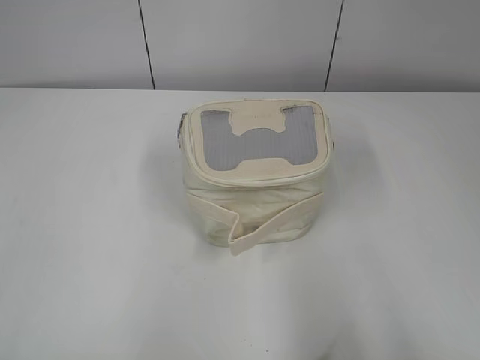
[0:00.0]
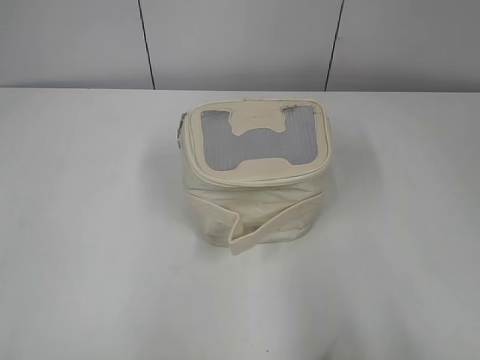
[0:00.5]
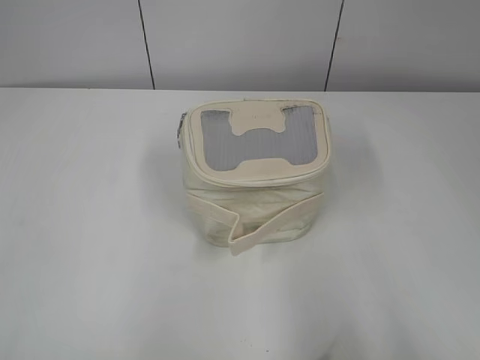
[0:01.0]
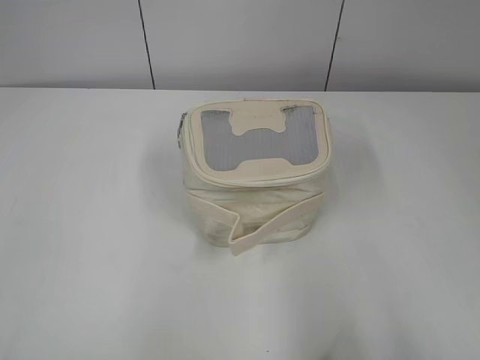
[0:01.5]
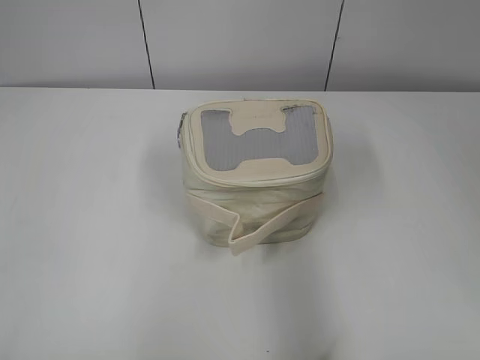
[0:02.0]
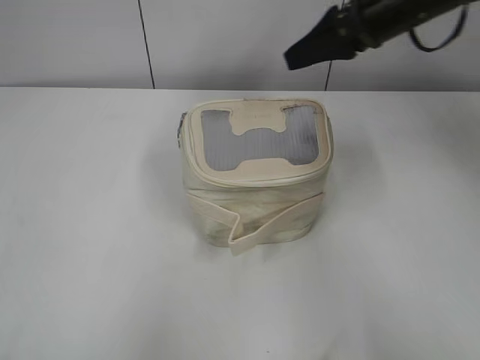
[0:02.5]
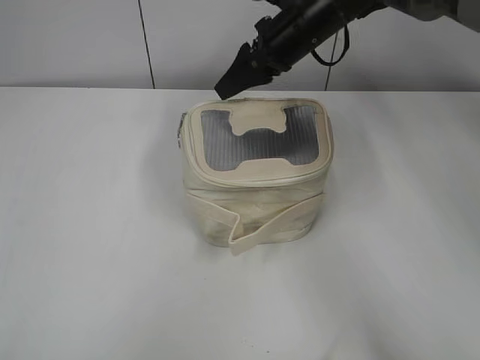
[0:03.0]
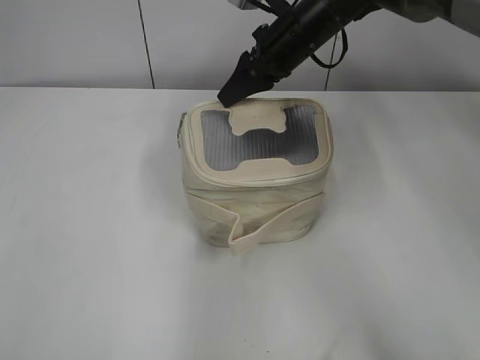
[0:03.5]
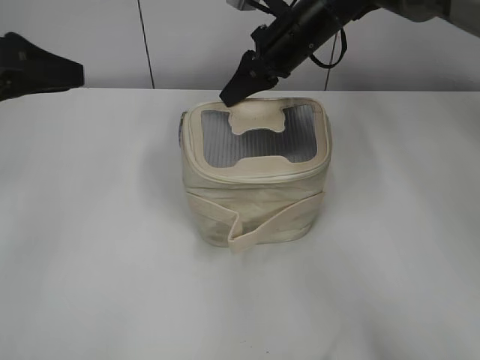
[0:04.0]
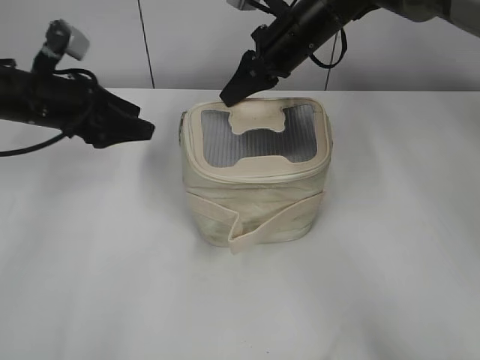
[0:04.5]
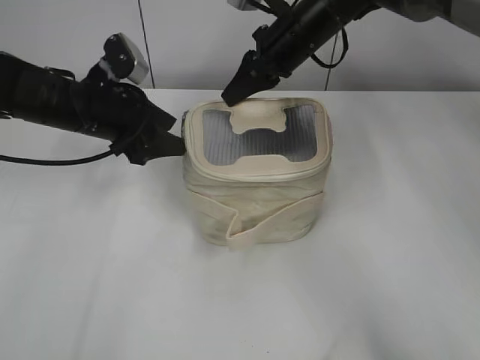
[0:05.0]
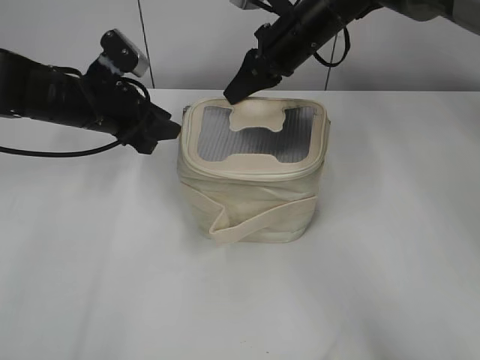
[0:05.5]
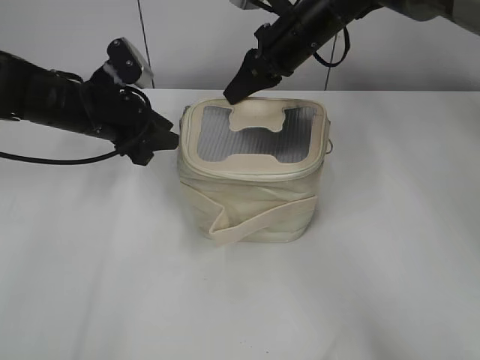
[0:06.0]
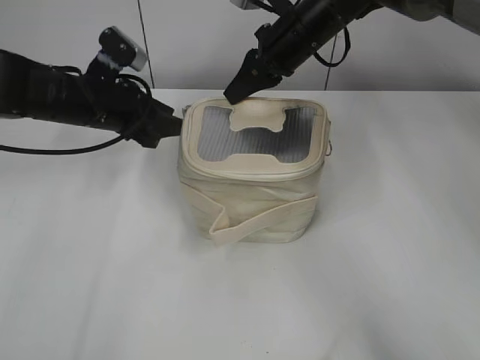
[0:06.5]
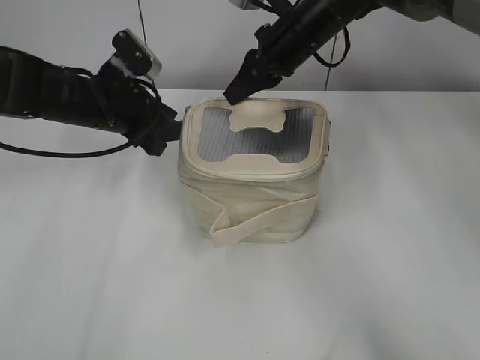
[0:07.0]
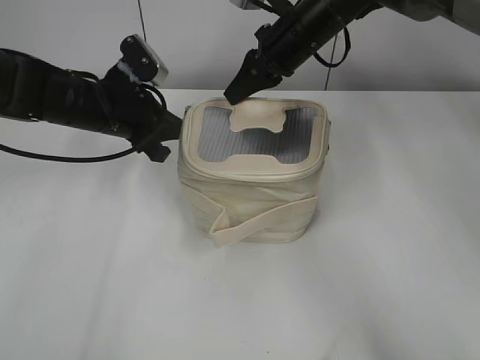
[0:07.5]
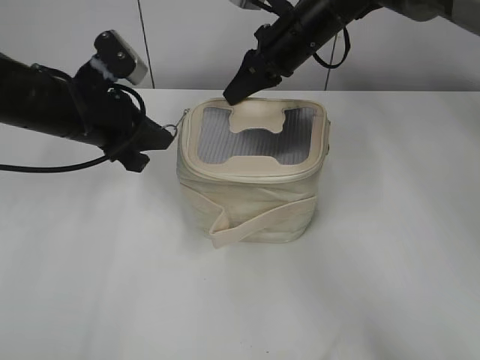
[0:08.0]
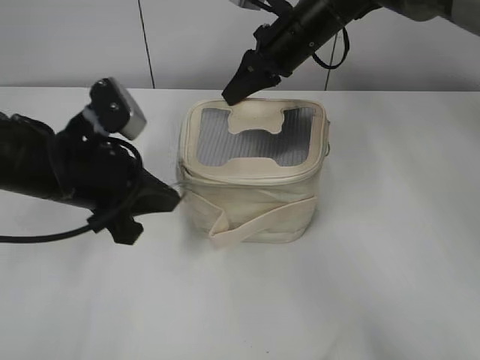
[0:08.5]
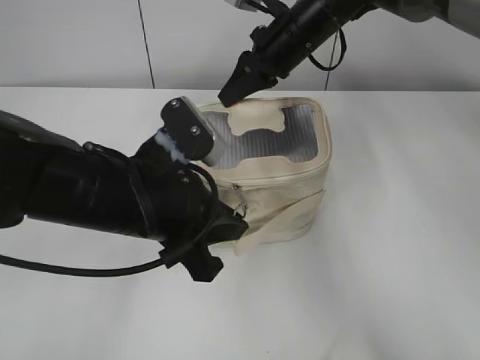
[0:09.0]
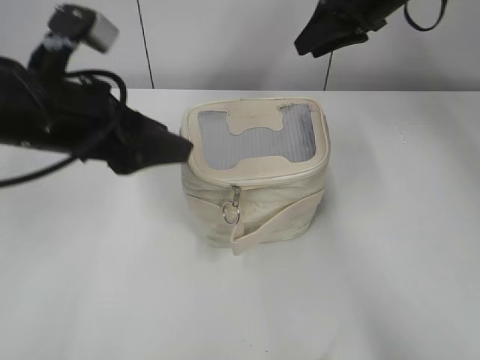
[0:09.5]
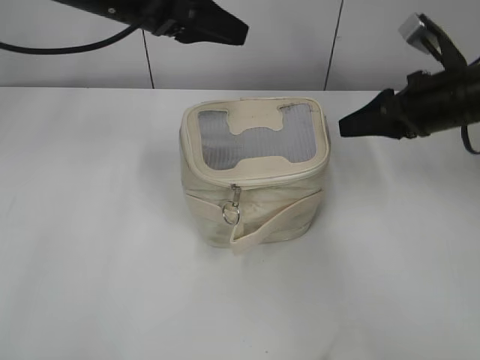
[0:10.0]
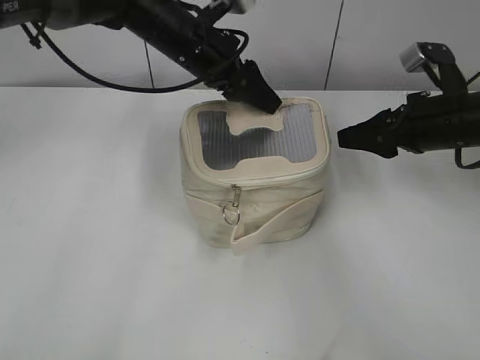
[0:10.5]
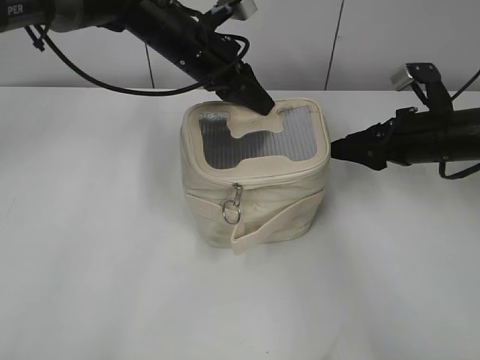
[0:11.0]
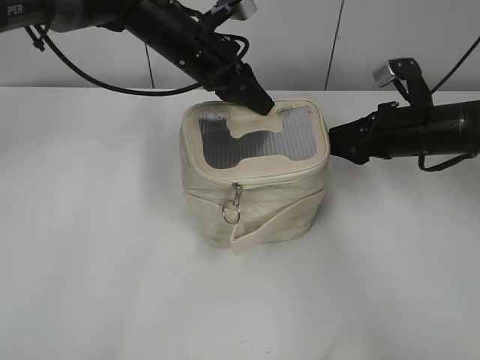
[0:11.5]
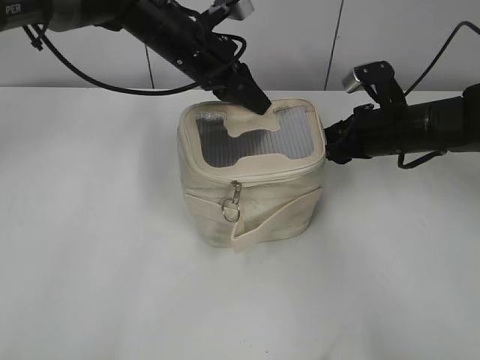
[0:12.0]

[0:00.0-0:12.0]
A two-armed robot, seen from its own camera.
Step, 0:00.0 to 0:09.0: Hold the bag with your right hand.
0:02.0 to 0:04.0: The left gripper travels forward by about 25 cm. Meanwhile the right gripper goes roughly 40 cm forward and to the left, and closes its fingers.
0:04.0 to 0:06.0: The left gripper goes about 20 cm downward, forward and to the right, and opens and closes again.
0:06.0 to 0:08.0: The left gripper moves approximately 5 cm, and closes its fingers.
0:08.0 to 0:10.0: The right gripper shifts approximately 20 cm to the right and backward, and opens its fingers. The left gripper travels upward and to the right by about 10 cm, goes backward and returns, about 10 cm each way, and opens its fingers.
0:10.0 to 0:12.0: The right gripper shifts about 10 cm downward, while the left gripper moves downward and to the right, roughly 10 cm, and closes.

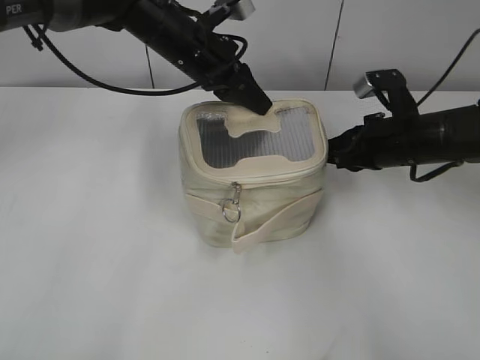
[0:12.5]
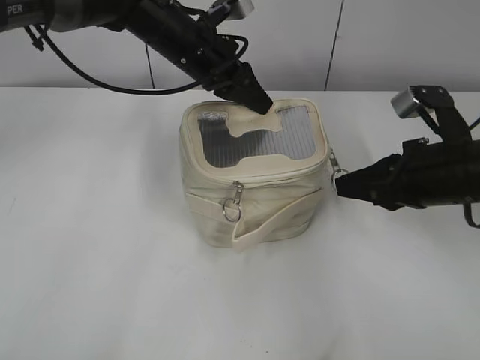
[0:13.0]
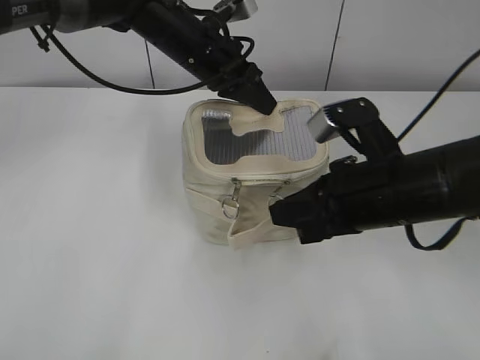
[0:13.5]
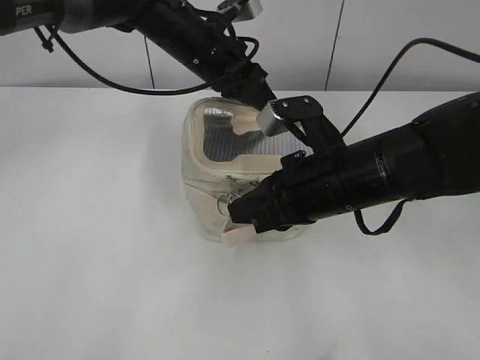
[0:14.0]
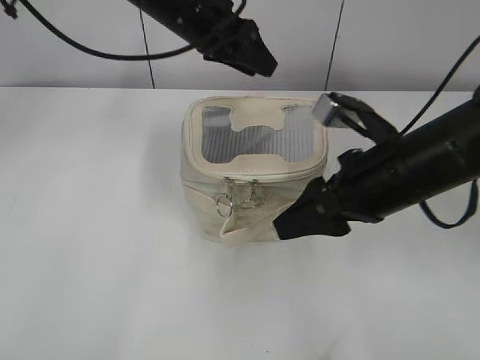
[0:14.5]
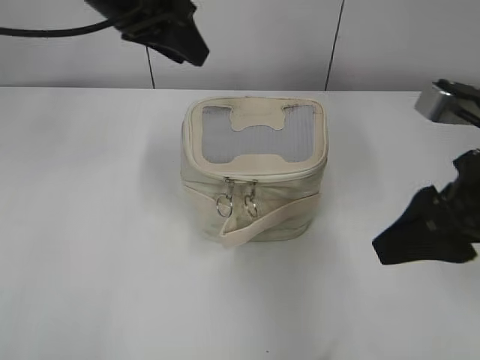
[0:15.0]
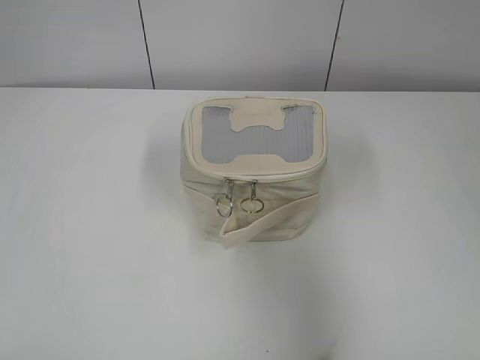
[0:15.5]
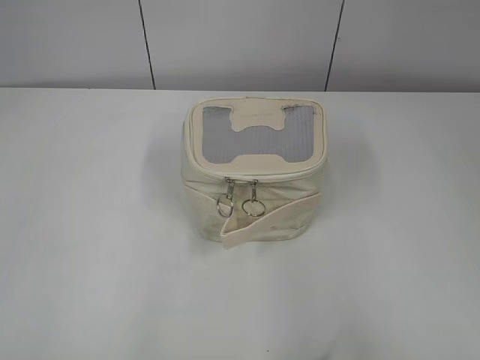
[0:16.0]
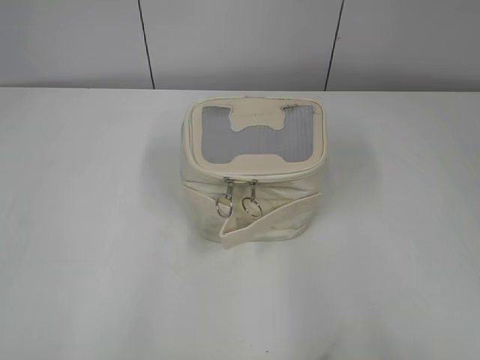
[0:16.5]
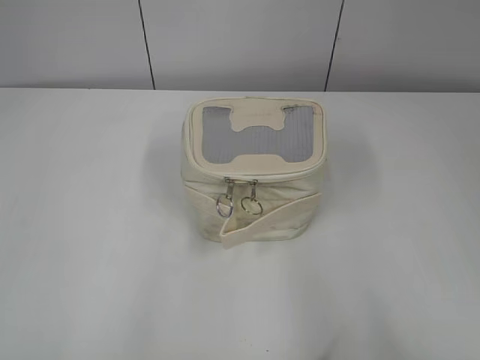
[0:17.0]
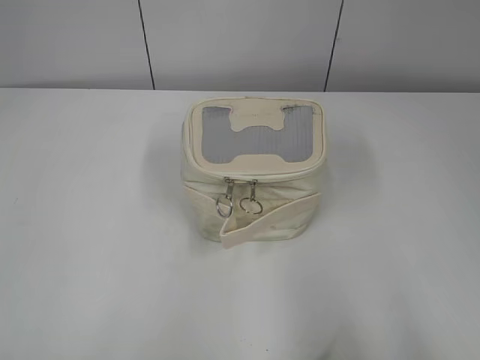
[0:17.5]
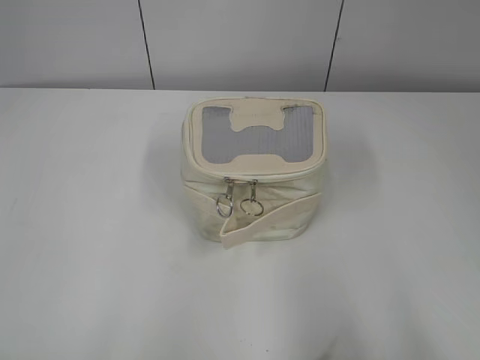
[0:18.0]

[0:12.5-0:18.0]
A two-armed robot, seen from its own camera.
0:12.5 to 0:14.5: The left gripper opens up; the right gripper shifts roughly 15 cm backward, to the left and upward, and opens its fingers.
0:14.5 to 0:16.0: The right gripper shifts approximately 30 cm backward, to the right and upward, while the left gripper travels backward and to the left by approximately 50 cm.

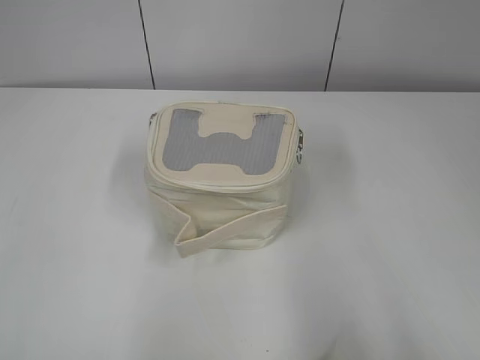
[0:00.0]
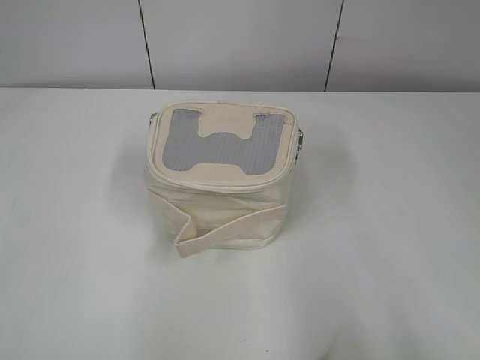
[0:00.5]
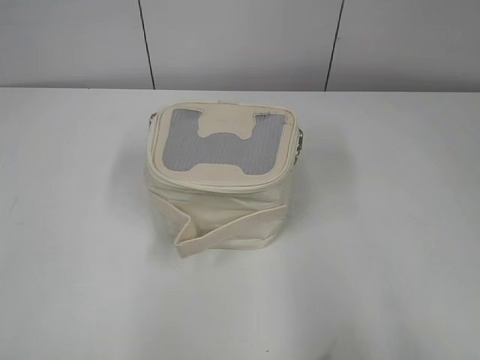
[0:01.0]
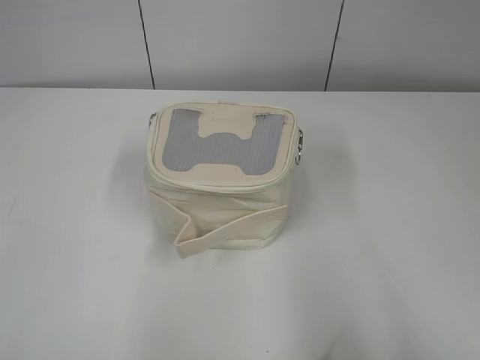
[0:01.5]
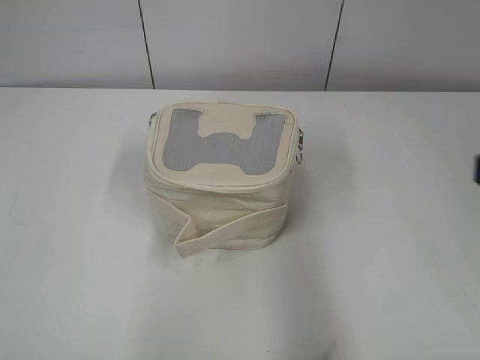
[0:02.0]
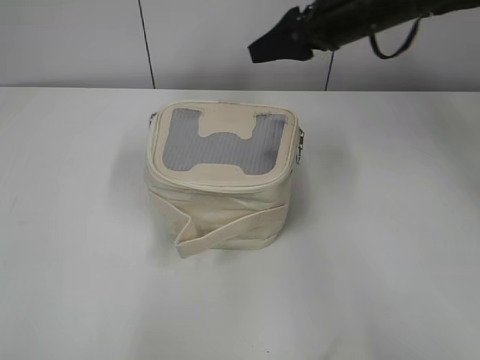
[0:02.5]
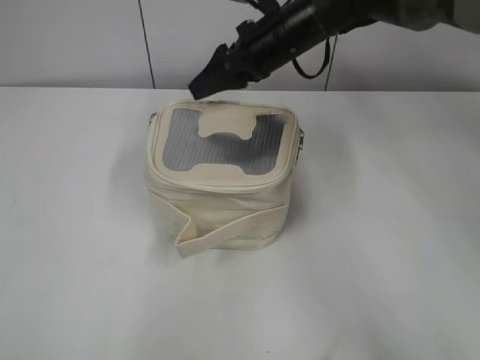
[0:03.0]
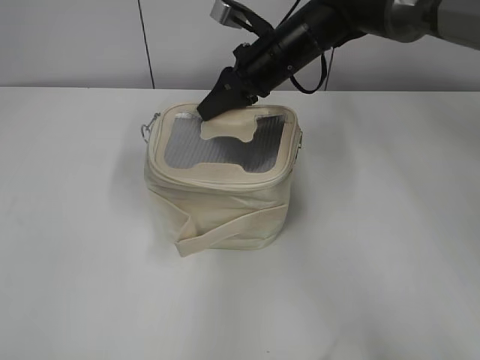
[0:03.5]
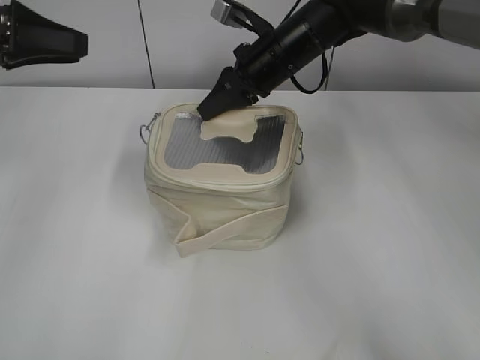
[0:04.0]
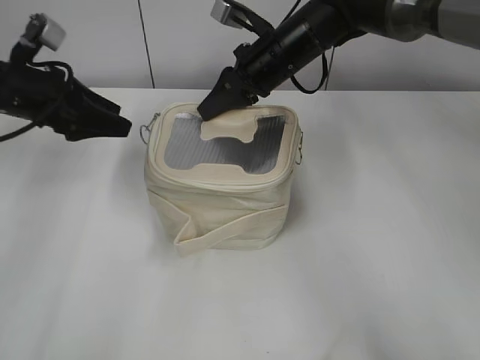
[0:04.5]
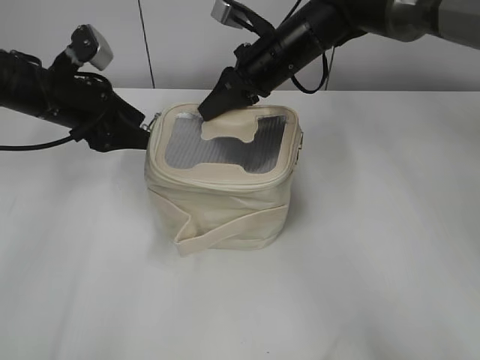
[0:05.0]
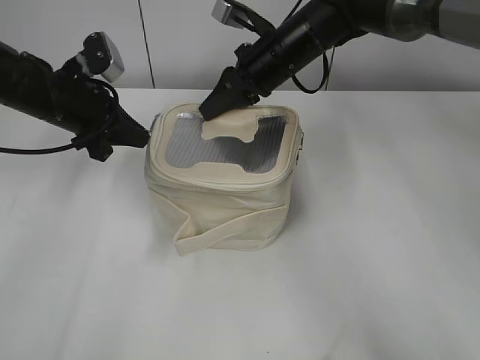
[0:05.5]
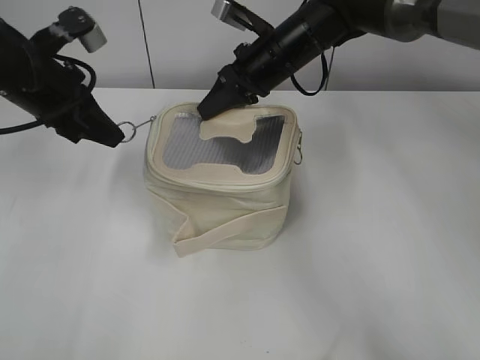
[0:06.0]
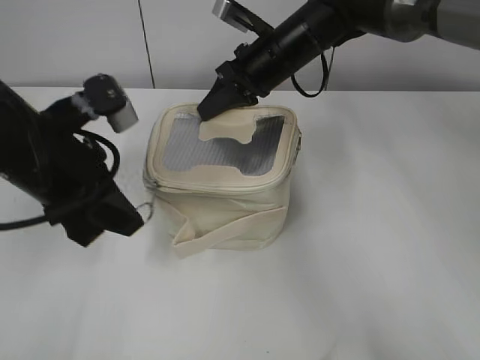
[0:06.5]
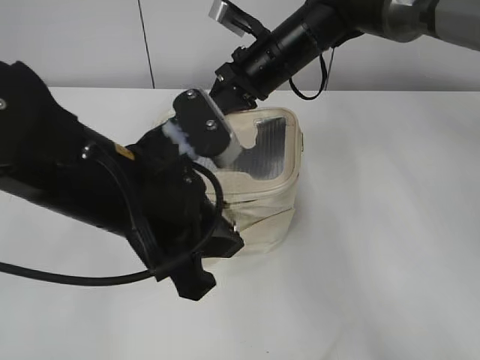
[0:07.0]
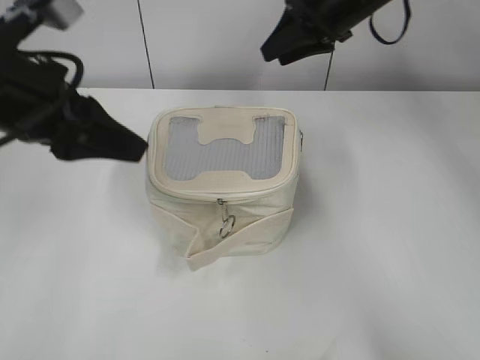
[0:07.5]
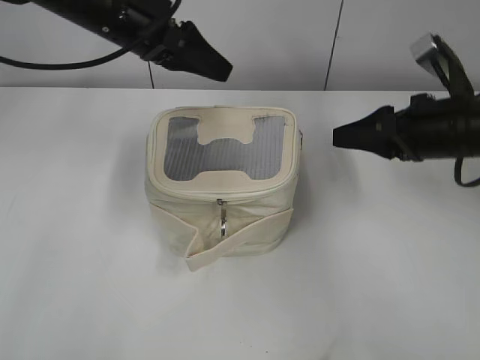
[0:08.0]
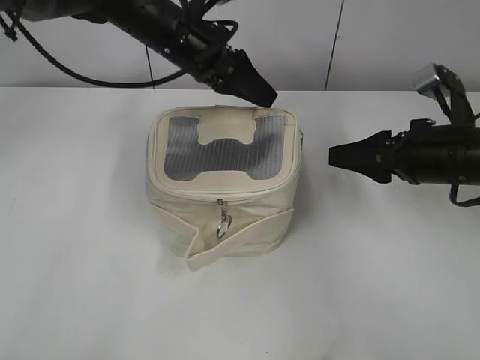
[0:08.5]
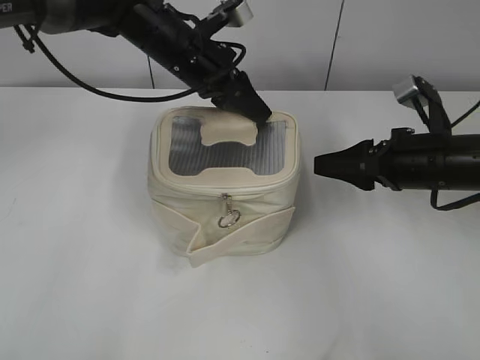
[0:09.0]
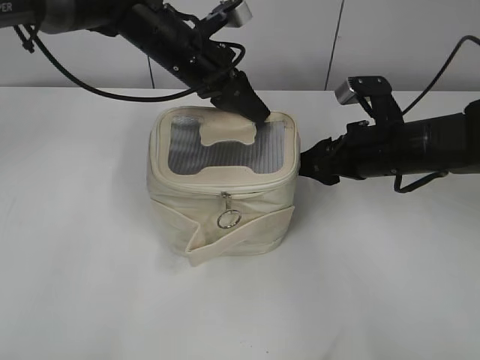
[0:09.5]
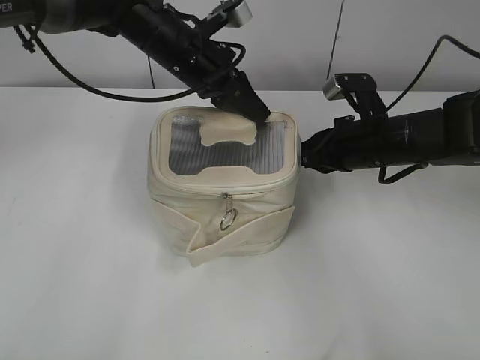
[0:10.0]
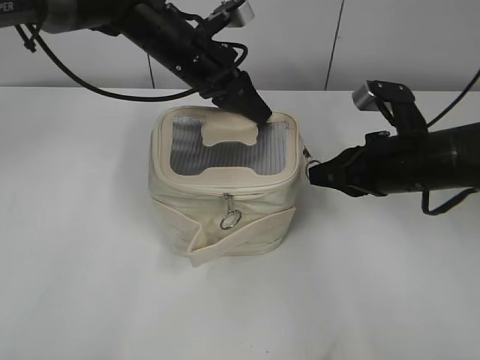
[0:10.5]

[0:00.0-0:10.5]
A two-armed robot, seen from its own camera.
Step, 0:00.0 to 0:07.0: Zip up the bag with your left hand.
0:02.0 to 0:04.0: The right gripper travels forward and to the left by about 40 cm, and closes its fingers; the left gripper travels forward by some 35 cm.
0:04.0 to 0:06.5: The left gripper is displaced to the right, backward and downward by some 15 cm, and closes its fingers.
0:06.5 to 0:08.5: The left gripper shifts some 20 cm forward and to the right, and opens up, while the right gripper travels to the right and backward by about 25 cm, and opens.
0:08.5 to 0:10.5: The right gripper closes up; the left gripper closes up.
